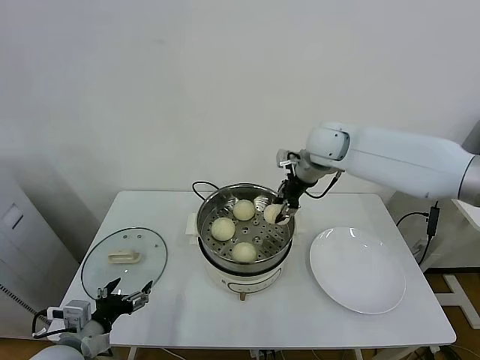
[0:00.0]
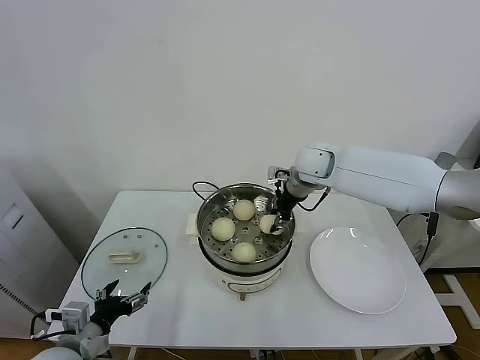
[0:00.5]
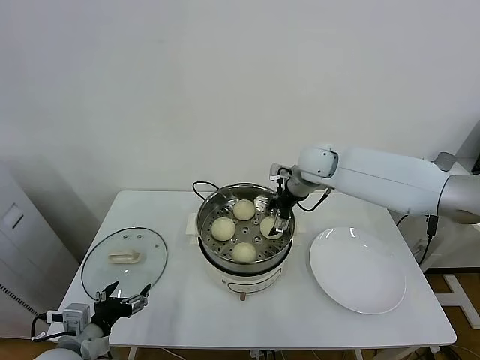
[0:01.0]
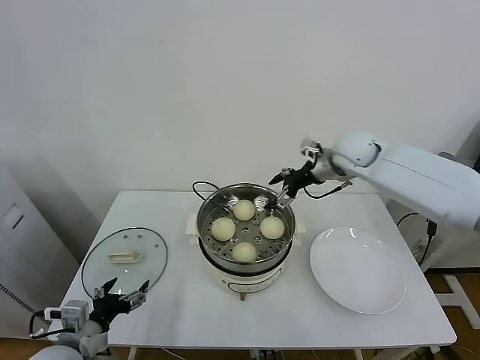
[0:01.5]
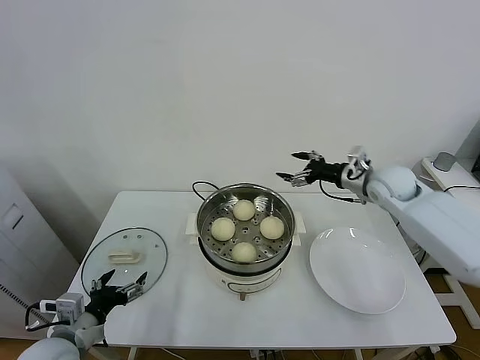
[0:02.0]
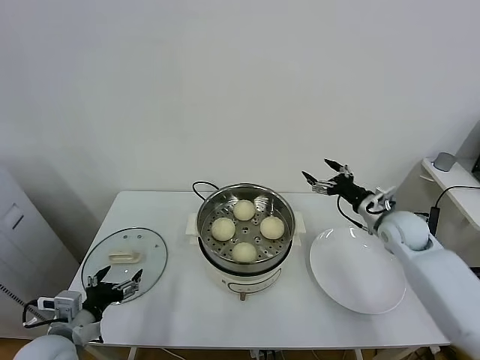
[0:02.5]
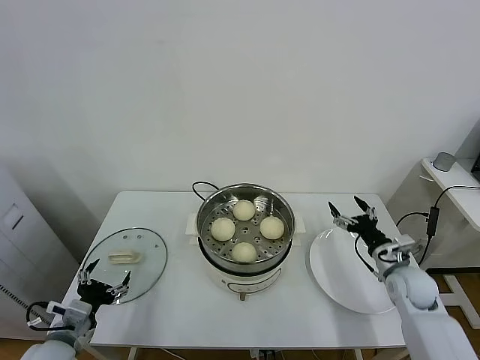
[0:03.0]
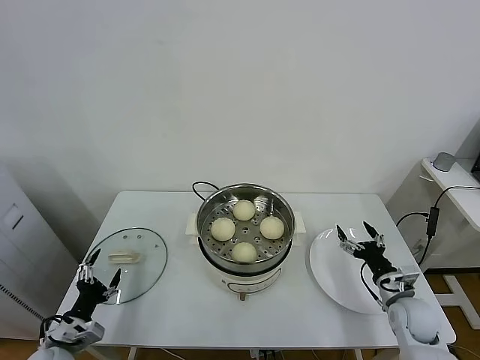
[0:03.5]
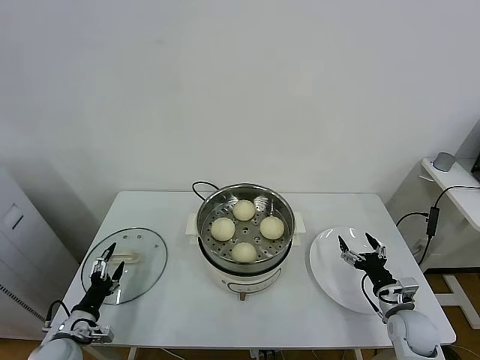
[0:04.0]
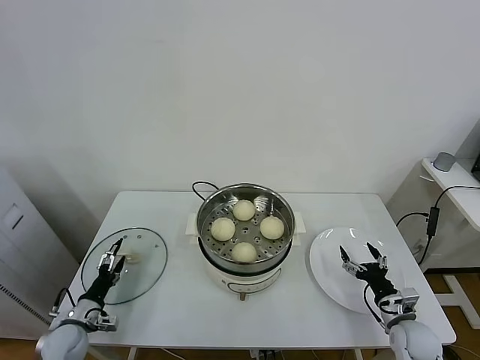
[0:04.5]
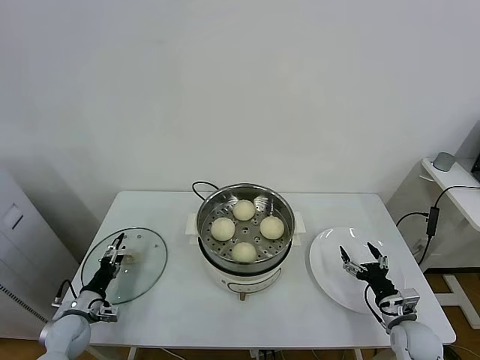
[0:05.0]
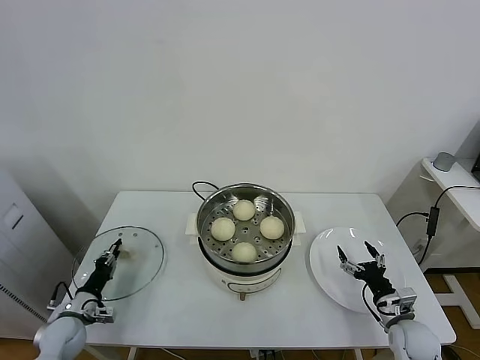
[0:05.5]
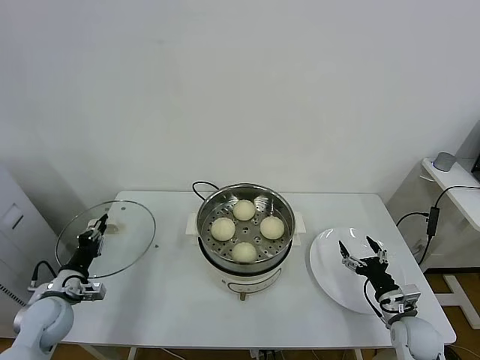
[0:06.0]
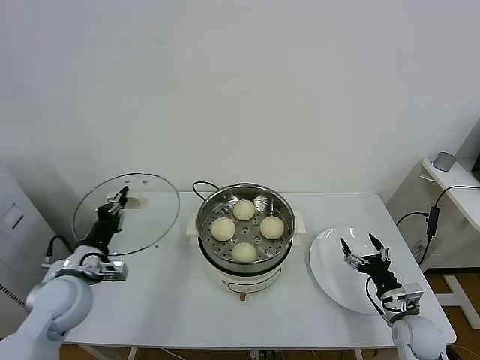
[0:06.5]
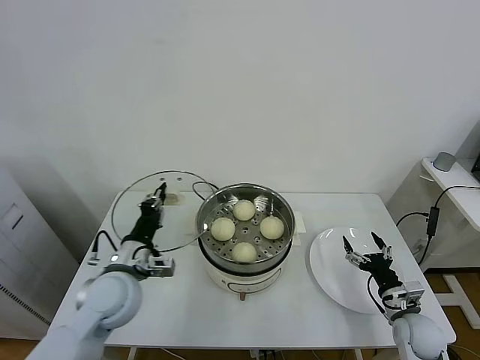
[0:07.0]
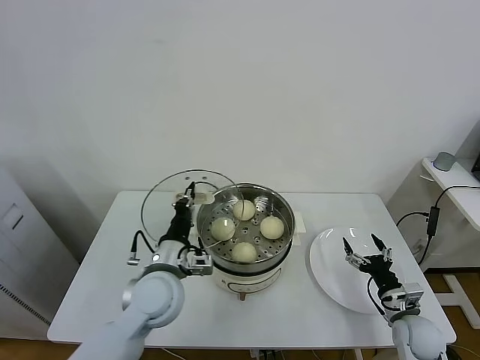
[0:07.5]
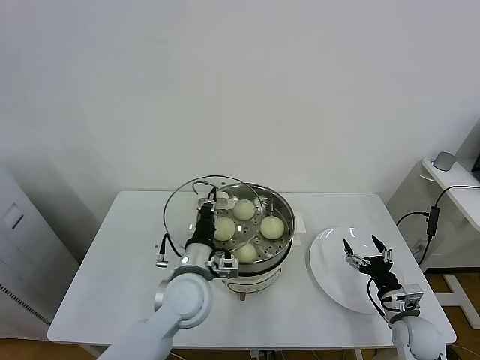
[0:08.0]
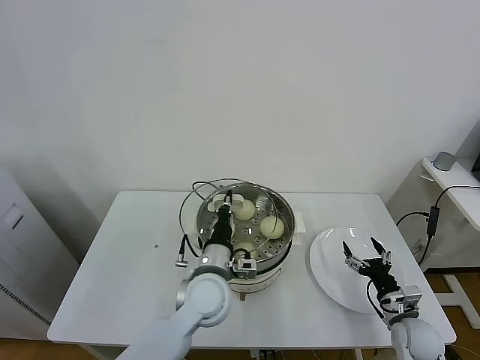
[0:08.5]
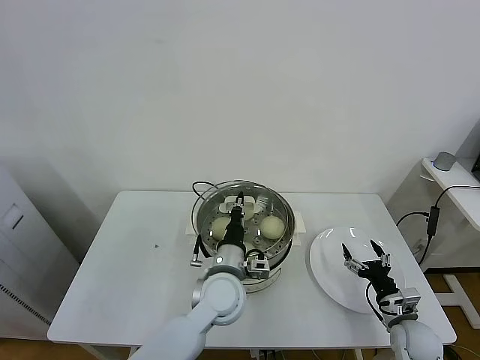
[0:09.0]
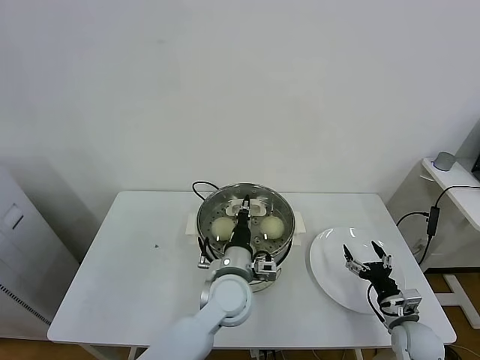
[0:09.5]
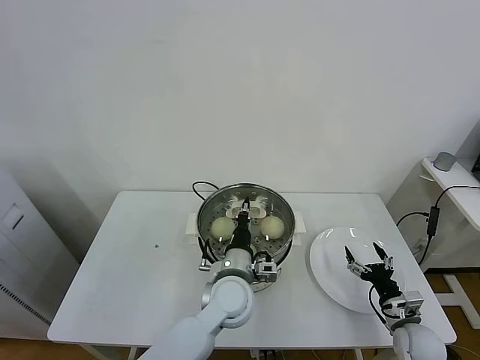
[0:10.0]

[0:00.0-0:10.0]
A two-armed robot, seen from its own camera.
Task of the whole recording: take steamed baozi put them in steamer.
Step, 0:01.5 to 0:05.5: Grasp the pot lid with left gripper.
0:00.0 to 0:02.0: The right gripper is displaced to the right and downward by approximately 20 cm, and opens its fingers.
0:02.0 to 0:04.0: The right gripper goes roughly 35 cm downward and backward. Meanwhile the left gripper shifts about 15 cm downward and to the left.
0:04.0 to 0:06.0: The left gripper heads upward and forward, covering roughly 10 cm, and closes up.
0:06.0 to 0:08.0: The left gripper heads to the right, covering roughly 30 cm.
0:08.0 to 0:10.0: The left gripper is displaced to the right by roughly 10 cm.

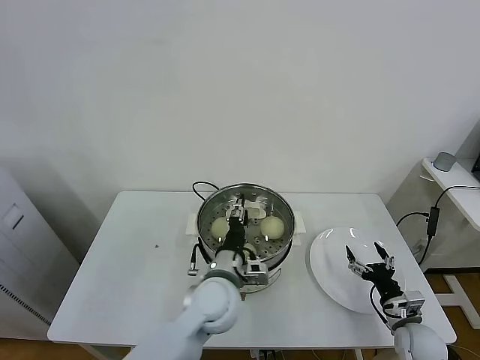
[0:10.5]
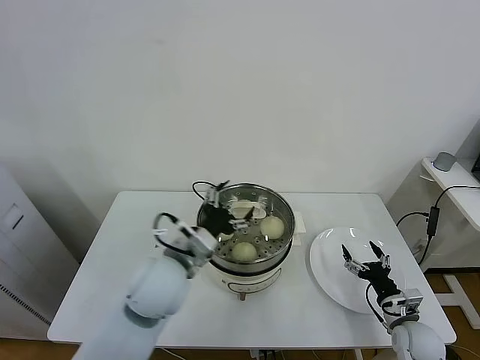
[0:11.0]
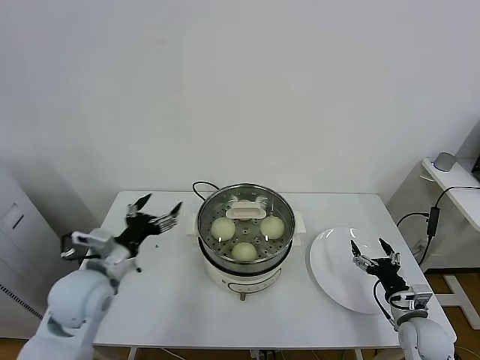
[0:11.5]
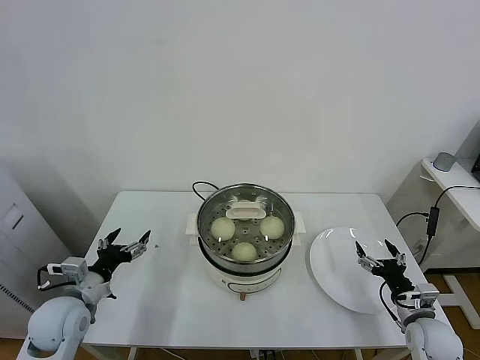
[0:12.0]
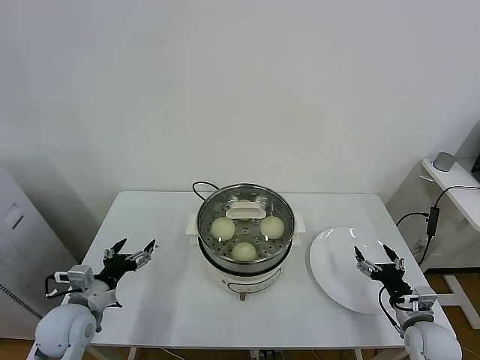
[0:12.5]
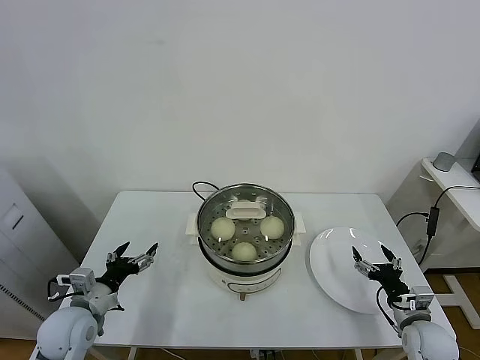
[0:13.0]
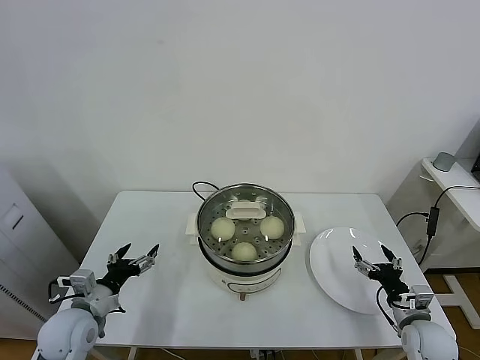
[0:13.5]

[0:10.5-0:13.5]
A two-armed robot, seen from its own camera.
Task of the whole recording: take steamed baozi put them in steamer.
0:10.5 to 0:12.0: The left gripper goes about 30 cm to the left, and opens up.
0:12.0 to 0:13.5: The grippers make only small movements.
